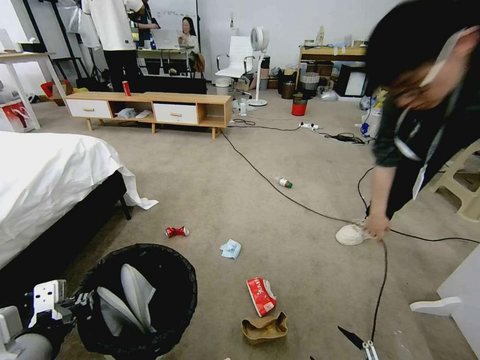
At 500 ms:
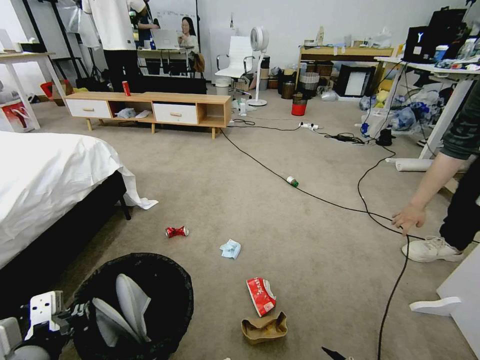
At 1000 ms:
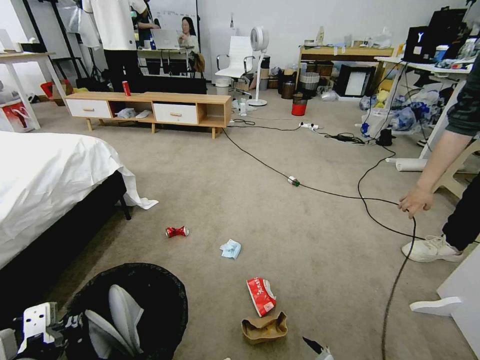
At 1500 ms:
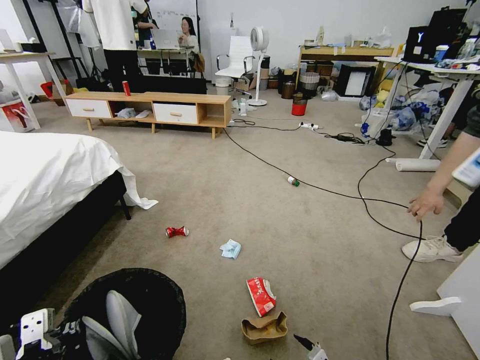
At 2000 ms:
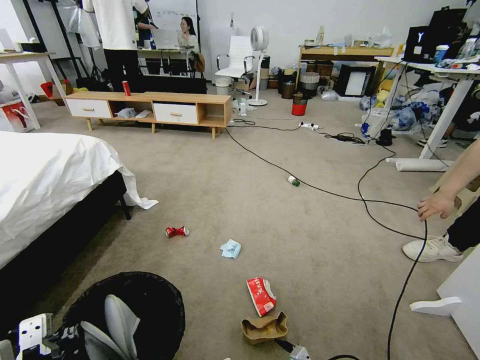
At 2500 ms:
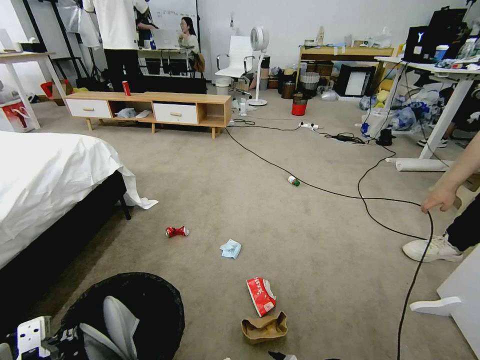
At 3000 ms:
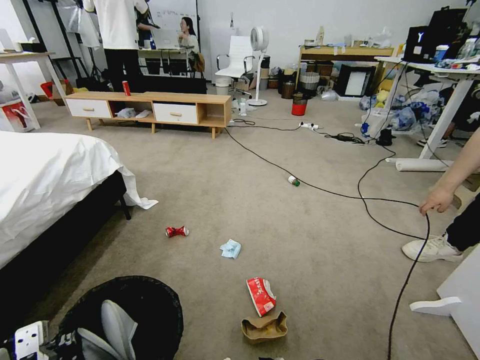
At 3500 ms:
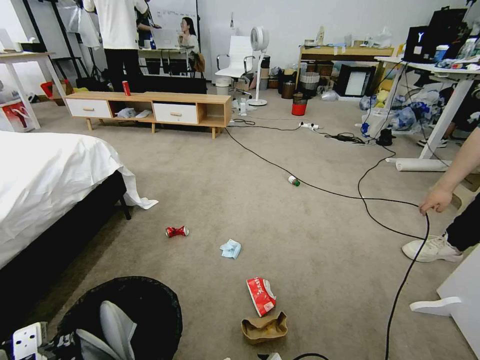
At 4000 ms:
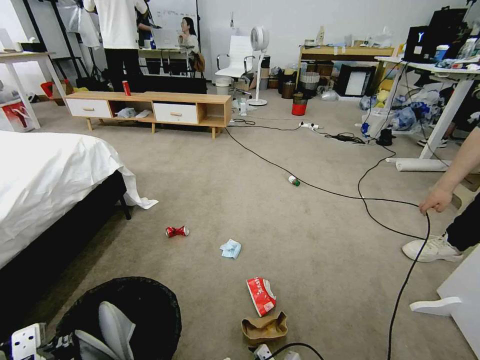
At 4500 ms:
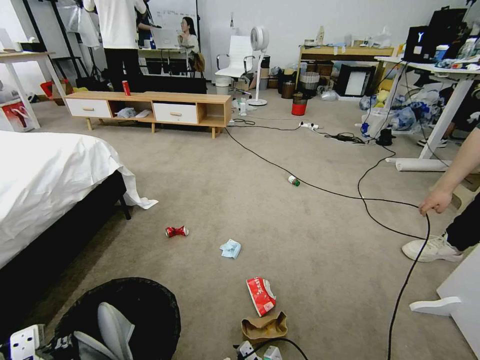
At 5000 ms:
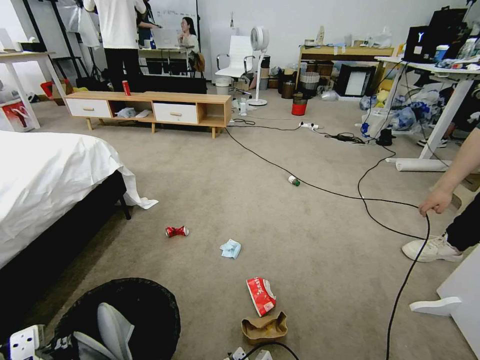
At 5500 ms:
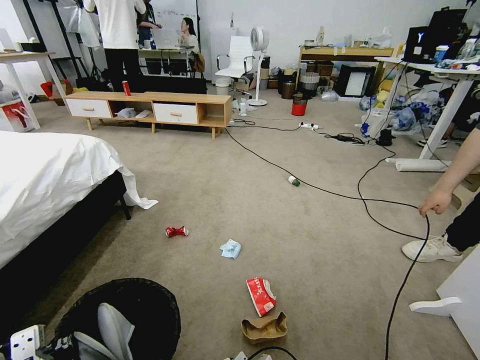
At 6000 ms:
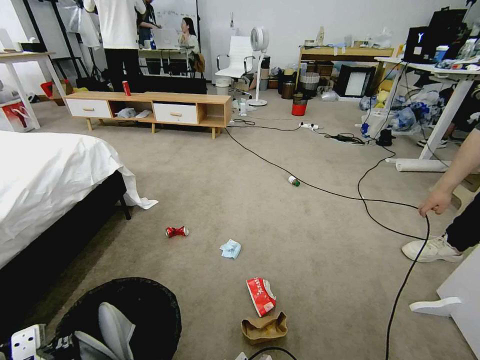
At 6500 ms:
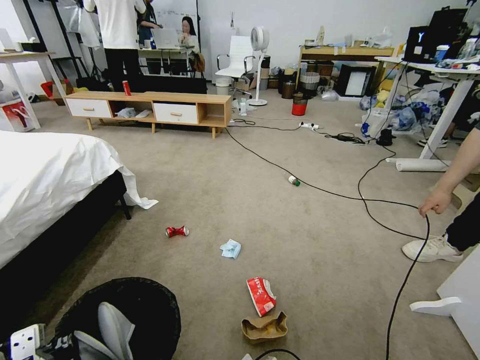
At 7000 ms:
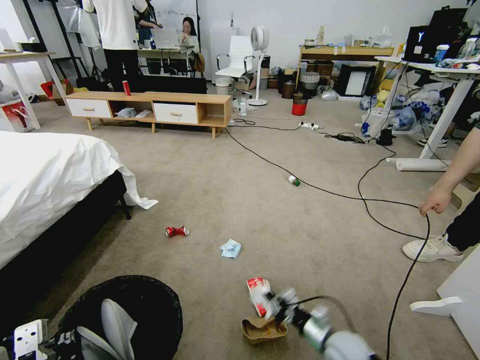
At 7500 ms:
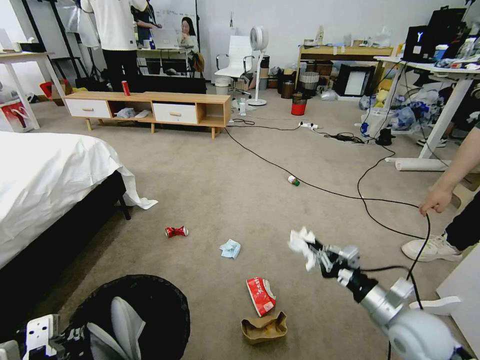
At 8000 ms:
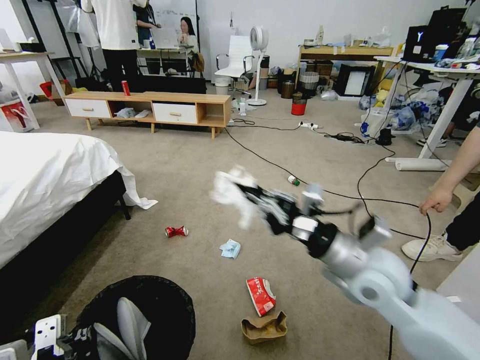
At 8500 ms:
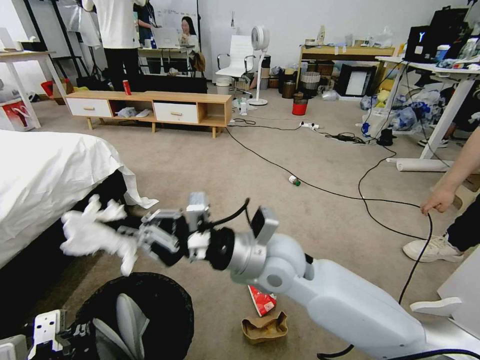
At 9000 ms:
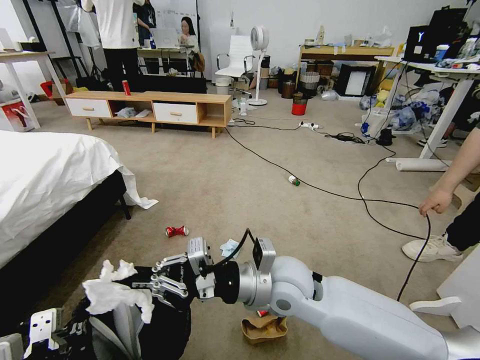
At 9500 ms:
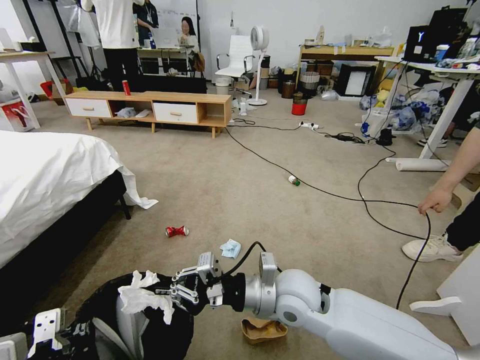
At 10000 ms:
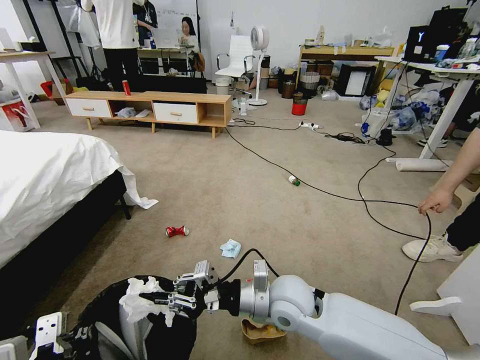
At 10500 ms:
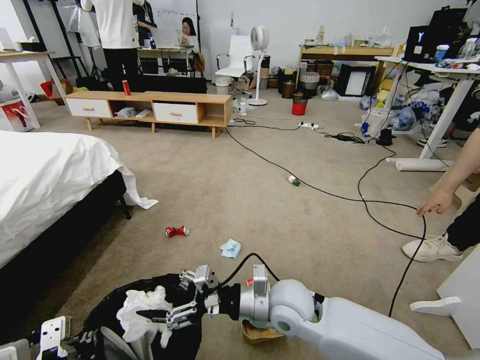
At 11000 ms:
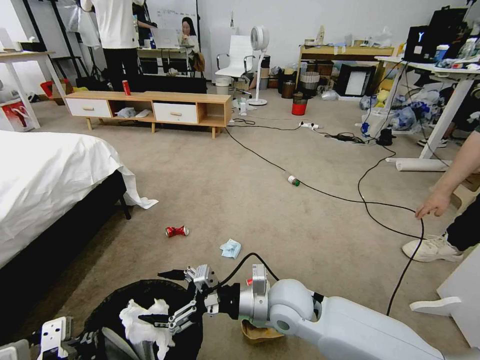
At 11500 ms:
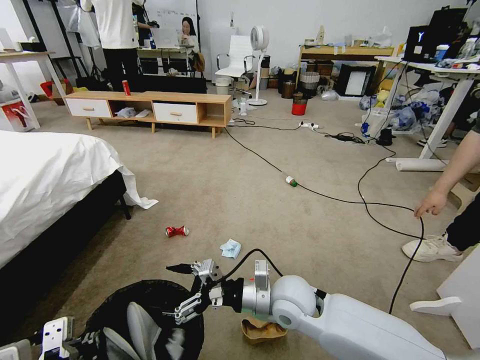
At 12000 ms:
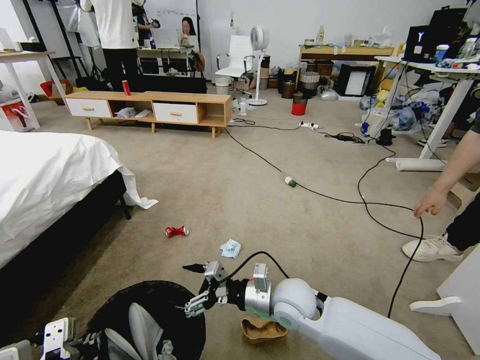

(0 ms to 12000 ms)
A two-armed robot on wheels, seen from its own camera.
Task of the whole recording: Pick up the trash bin and place the garbage on the floor into it.
0 ms - 2000 ms: The right gripper heads downward, to the left and forward, covering some 15 cm.
2000 ms - 4000 ms: The right gripper shifts roughly 10 cm downward, to the left and forward.
4000 ms - 6000 ms: The right gripper shifts some 5 cm to the left, and closes.
6000 ms - 8000 ms: The right gripper is displaced upward by about 40 cm, and closes up.
8000 ms - 10000 ms: The right gripper travels to the left and downward by roughly 15 cm.
10000 ms - 12000 ms: The right gripper opens.

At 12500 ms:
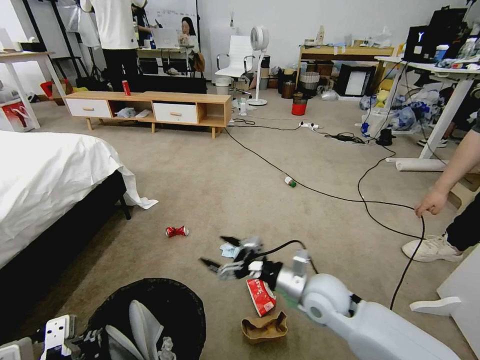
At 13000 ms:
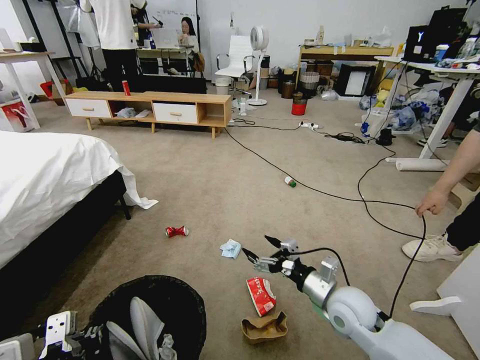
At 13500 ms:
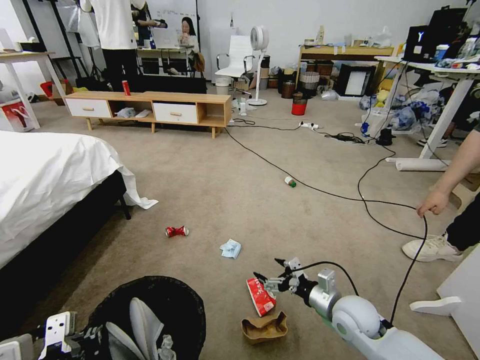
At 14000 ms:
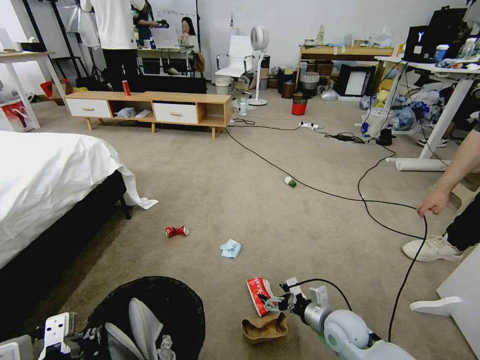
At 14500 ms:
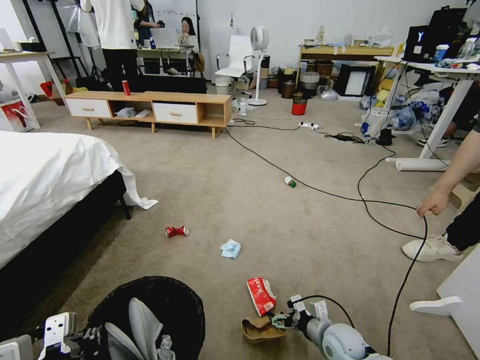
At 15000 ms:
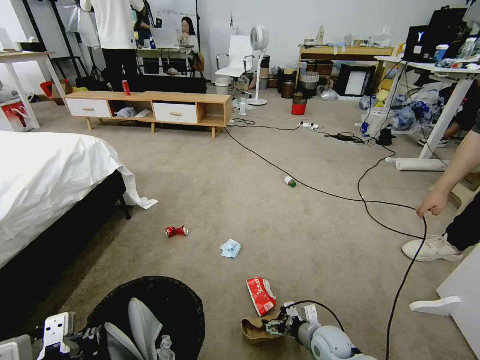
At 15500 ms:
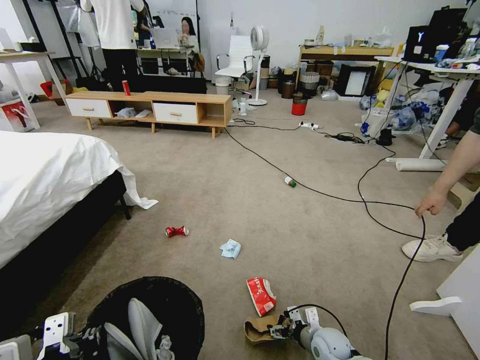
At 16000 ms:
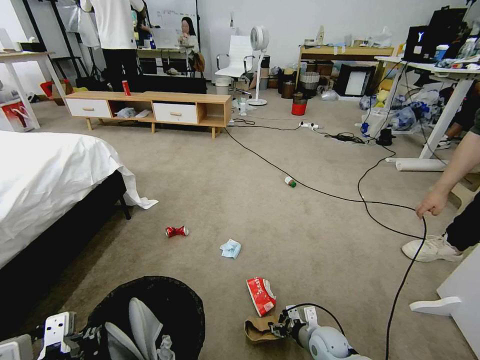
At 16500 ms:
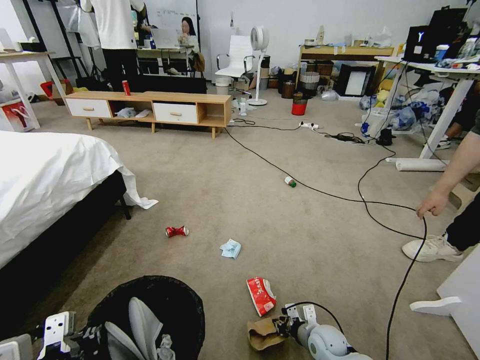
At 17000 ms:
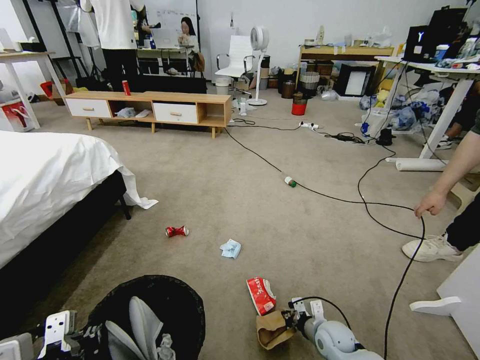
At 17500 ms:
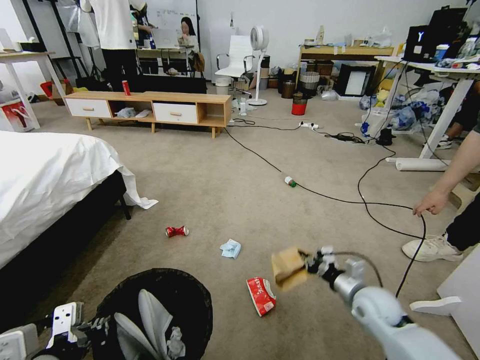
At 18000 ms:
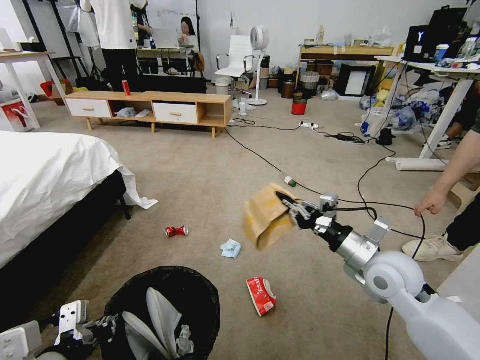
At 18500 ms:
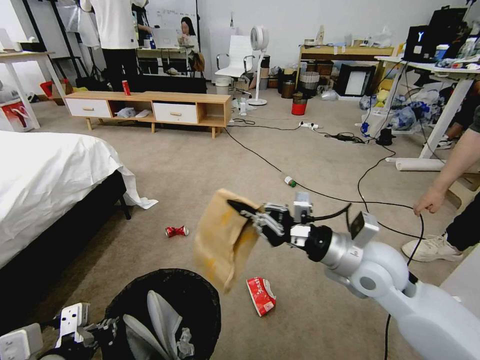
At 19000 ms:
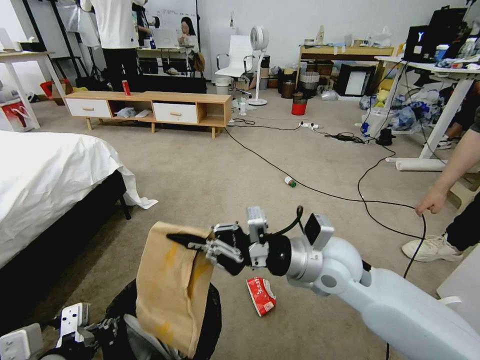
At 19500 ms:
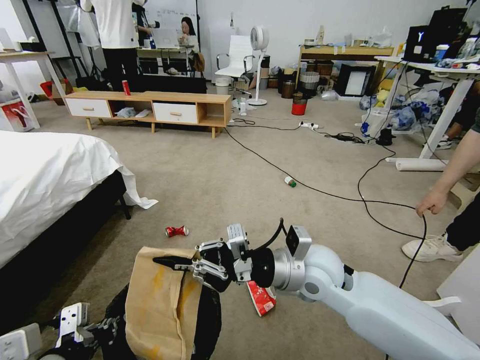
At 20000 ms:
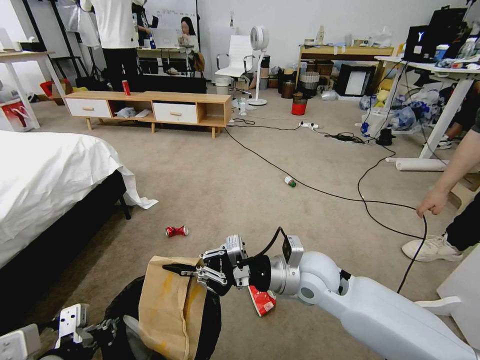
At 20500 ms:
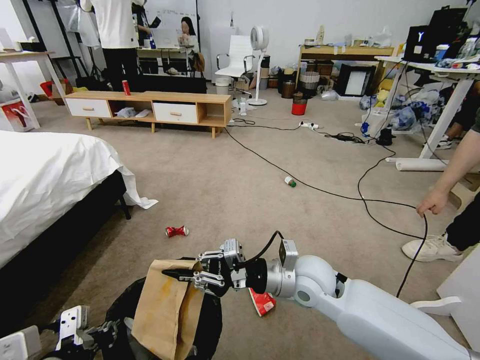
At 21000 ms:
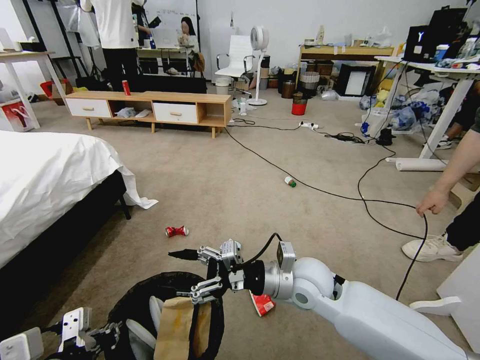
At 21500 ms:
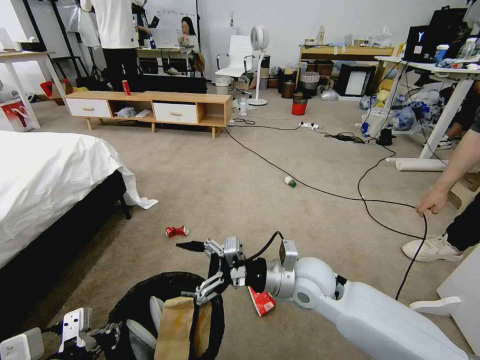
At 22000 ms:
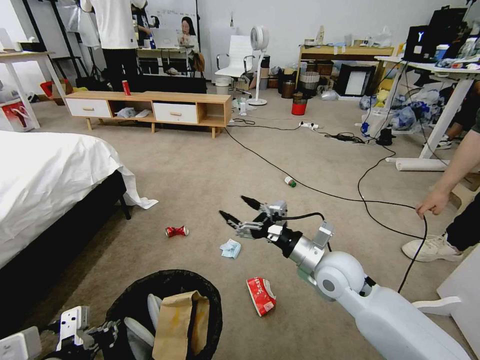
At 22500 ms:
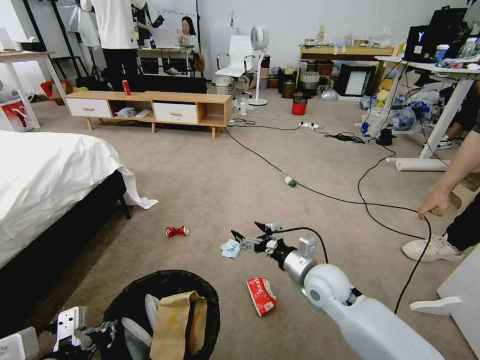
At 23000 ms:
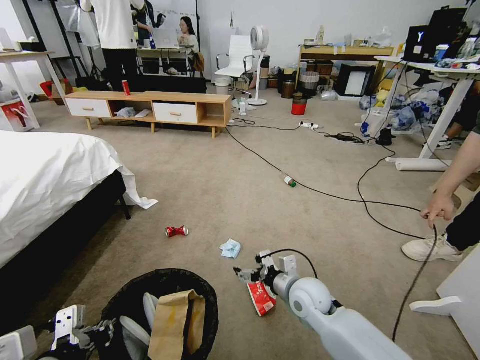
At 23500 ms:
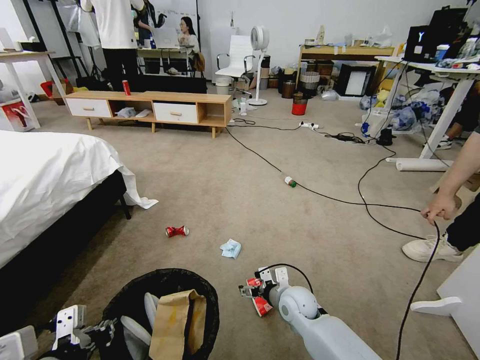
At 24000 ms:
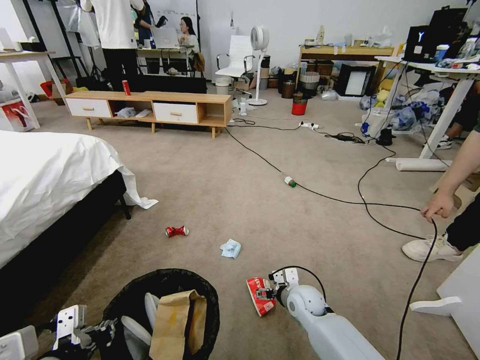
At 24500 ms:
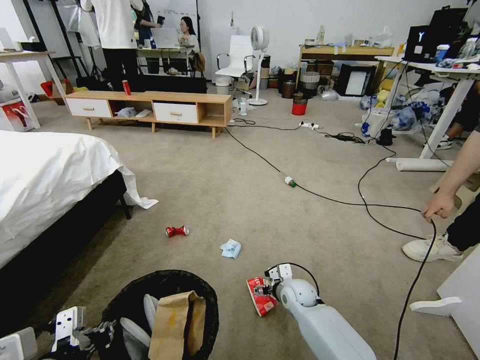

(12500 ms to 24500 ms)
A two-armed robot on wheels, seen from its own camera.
Task of the whole recording: Pick up the trash bin and place the garbage on the floor into it.
12500 ms - 14500 ms: The right gripper is displaced downward and to the right by approximately 20 cm.
14500 ms - 16500 ms: The right gripper changes place by roughly 5 cm, and closes up.
16500 ms - 18500 ms: The right gripper shifts approximately 35 cm upward.
18500 ms - 20500 ms: The right gripper heads to the left and downward, covering some 15 cm.
20500 ms - 22500 ms: The right gripper goes some 10 cm downward and to the right, and opens.
22500 ms - 24500 ms: The right gripper shifts roughly 15 cm downward.

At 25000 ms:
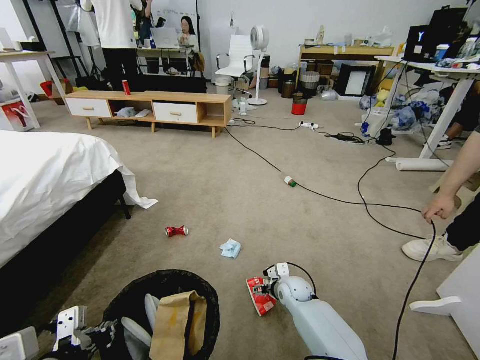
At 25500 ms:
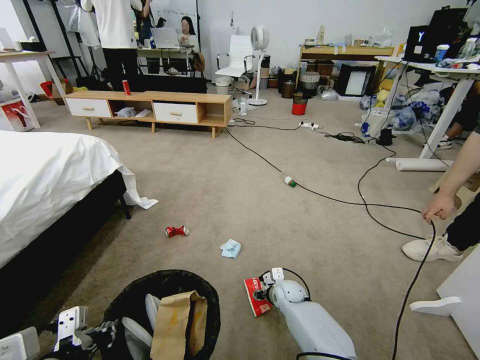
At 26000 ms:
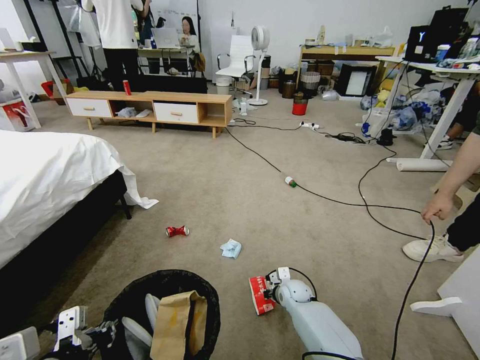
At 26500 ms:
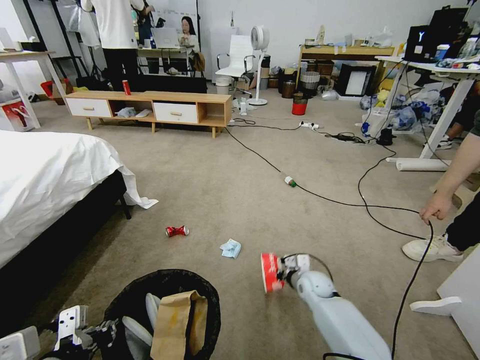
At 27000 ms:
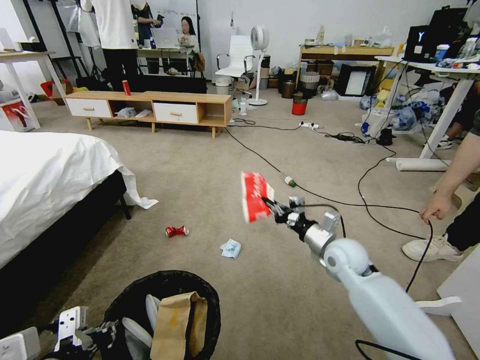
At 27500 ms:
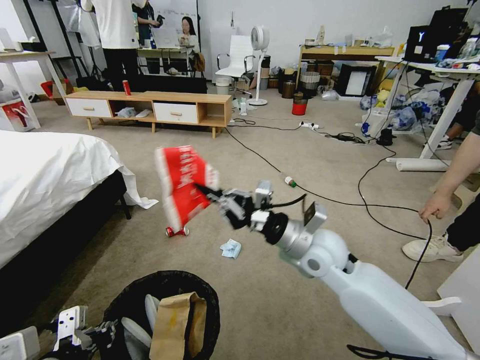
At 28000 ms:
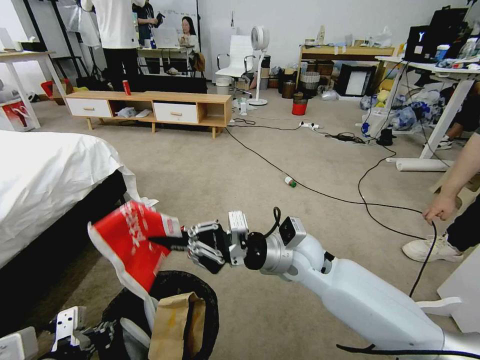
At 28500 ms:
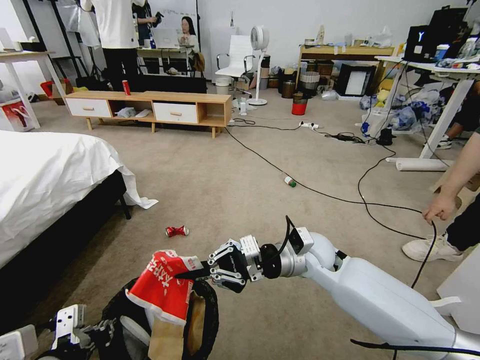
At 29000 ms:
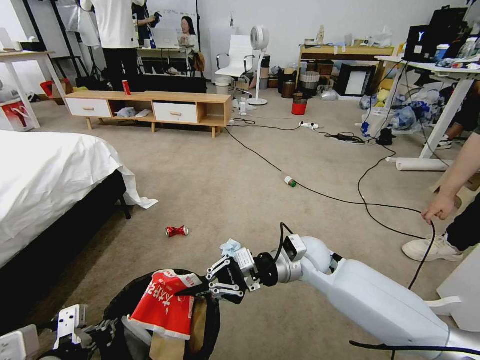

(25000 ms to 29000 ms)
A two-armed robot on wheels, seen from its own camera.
Task of the whole recording: Pick up the trash bin and place the garbage on the floor into it.
25000 ms - 27000 ms: The right gripper goes roughly 20 cm upward and to the right, and closes its fingers.
27000 ms - 29000 ms: The right gripper travels to the left by some 10 cm.
